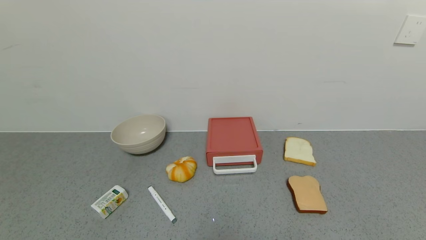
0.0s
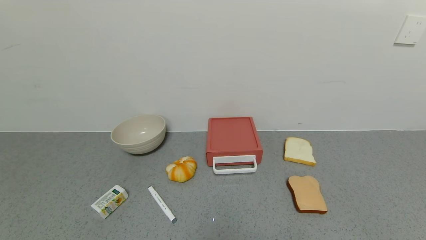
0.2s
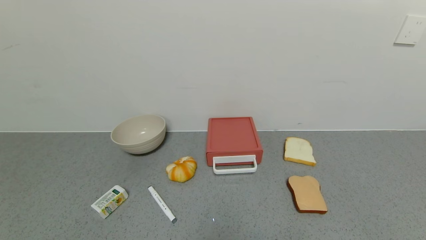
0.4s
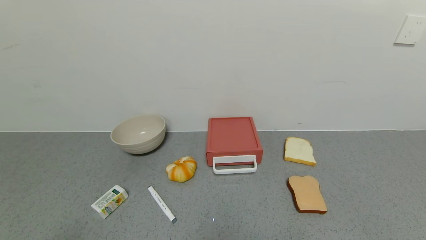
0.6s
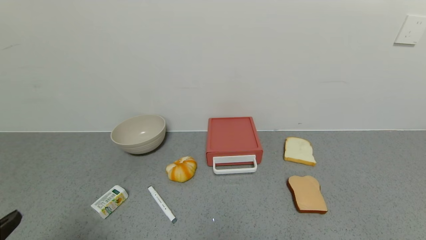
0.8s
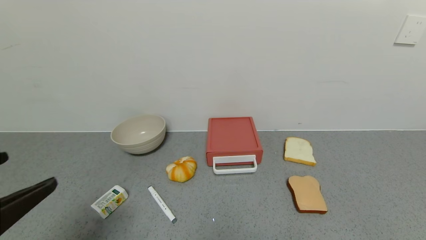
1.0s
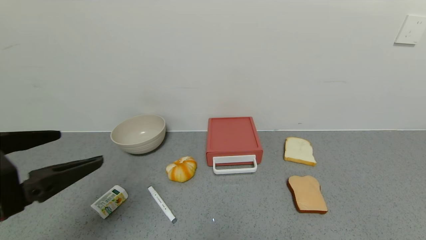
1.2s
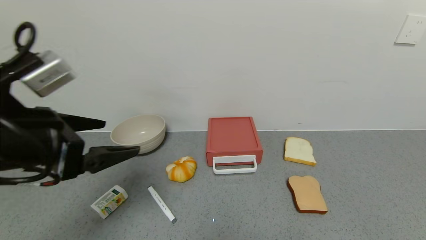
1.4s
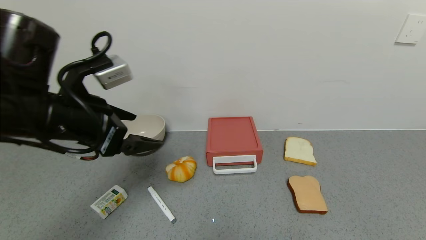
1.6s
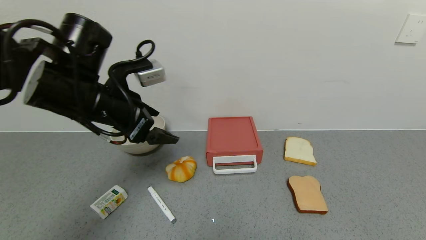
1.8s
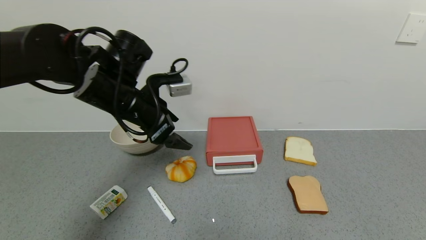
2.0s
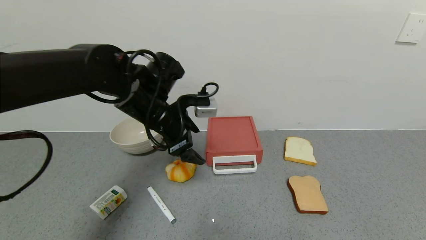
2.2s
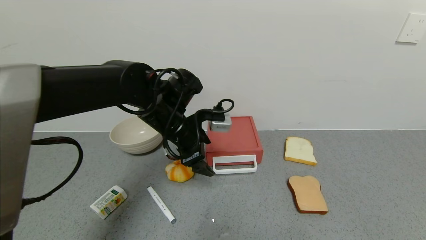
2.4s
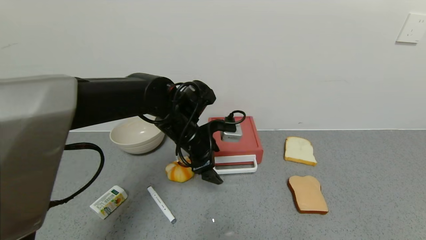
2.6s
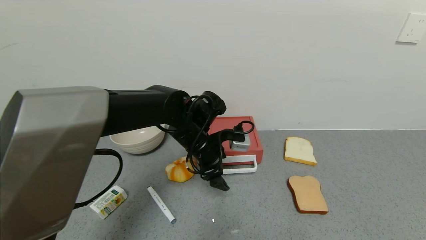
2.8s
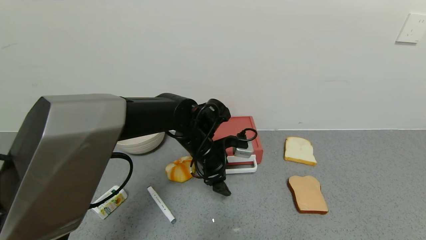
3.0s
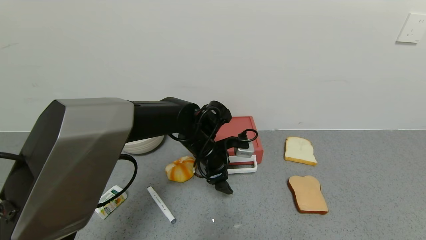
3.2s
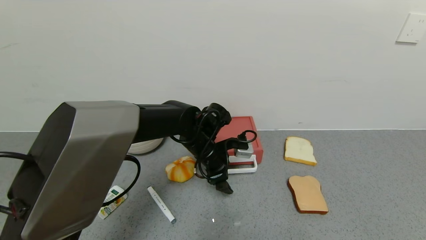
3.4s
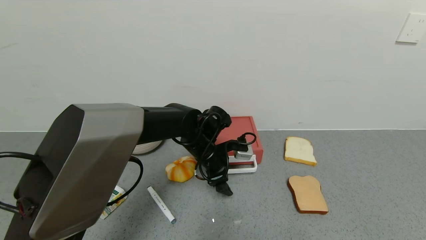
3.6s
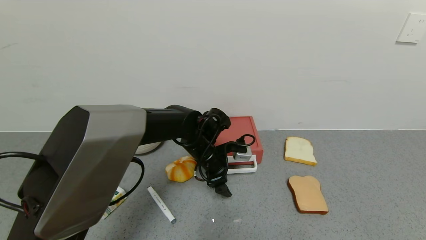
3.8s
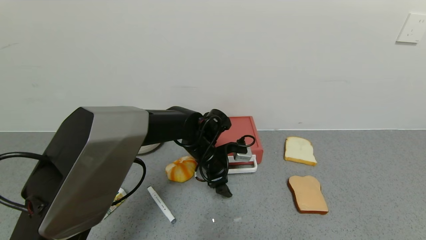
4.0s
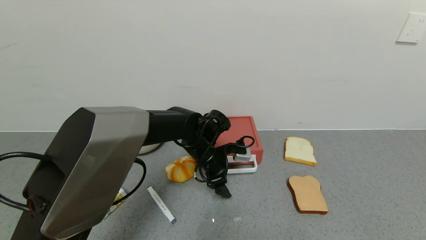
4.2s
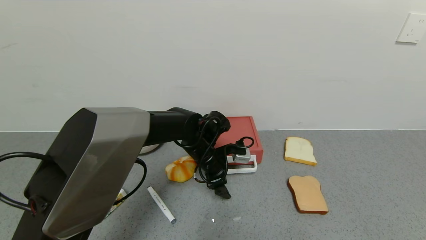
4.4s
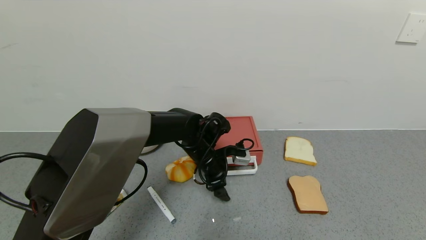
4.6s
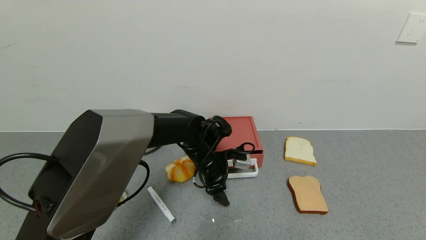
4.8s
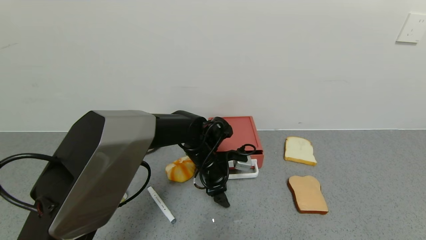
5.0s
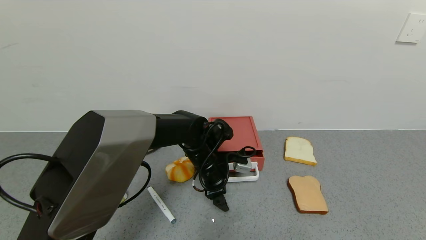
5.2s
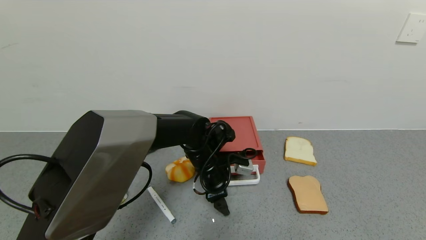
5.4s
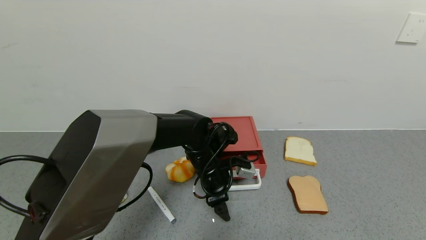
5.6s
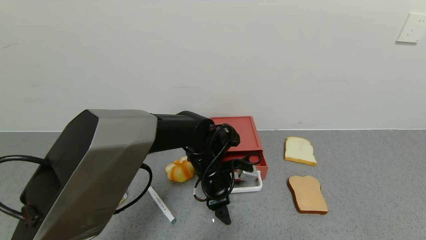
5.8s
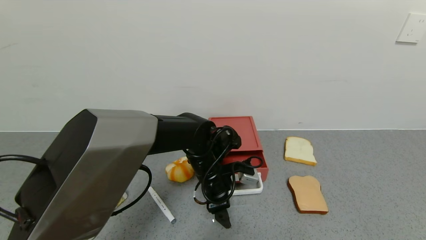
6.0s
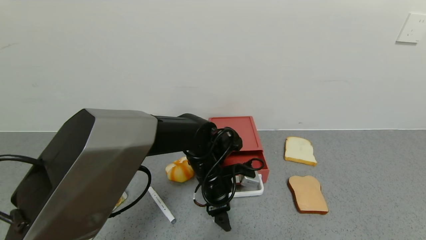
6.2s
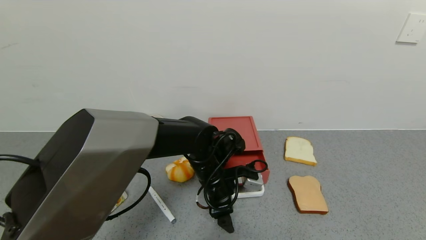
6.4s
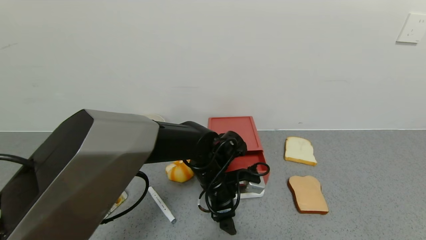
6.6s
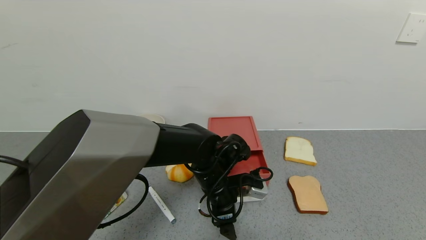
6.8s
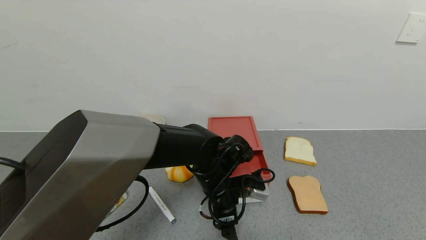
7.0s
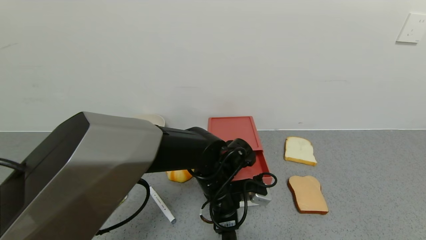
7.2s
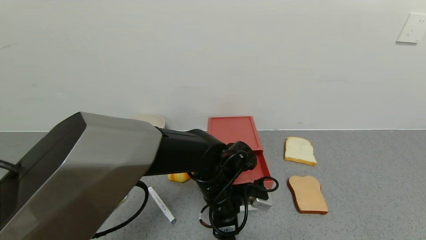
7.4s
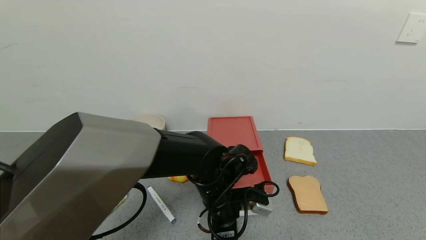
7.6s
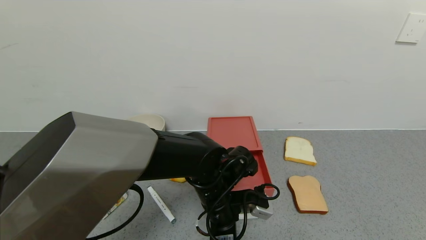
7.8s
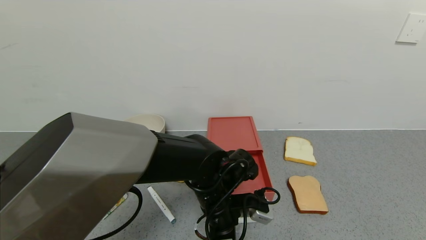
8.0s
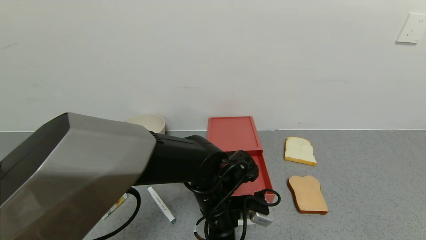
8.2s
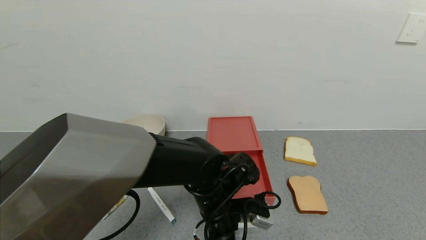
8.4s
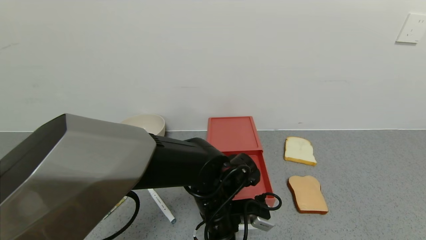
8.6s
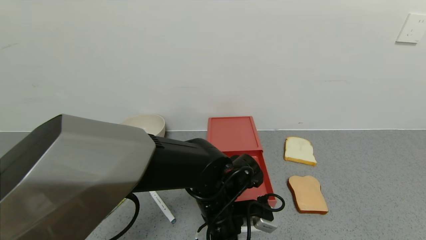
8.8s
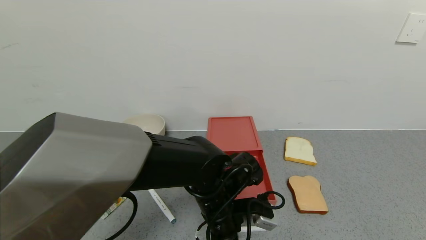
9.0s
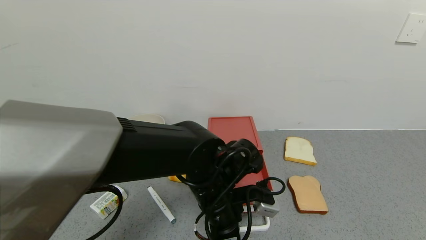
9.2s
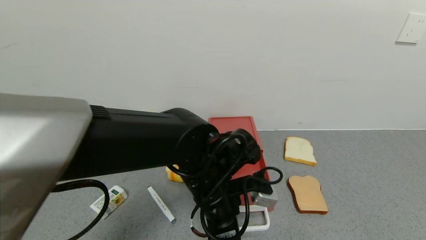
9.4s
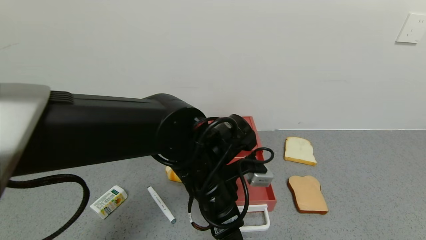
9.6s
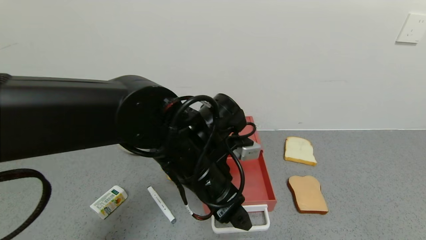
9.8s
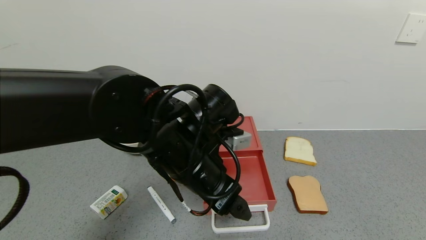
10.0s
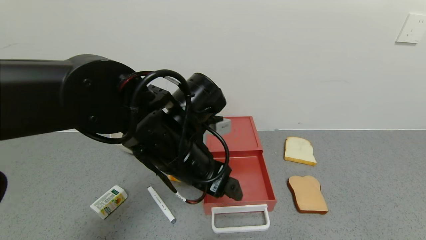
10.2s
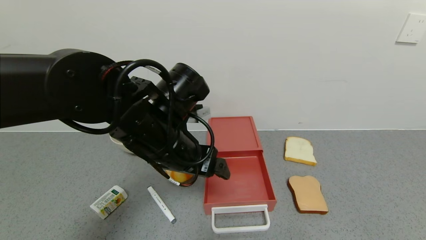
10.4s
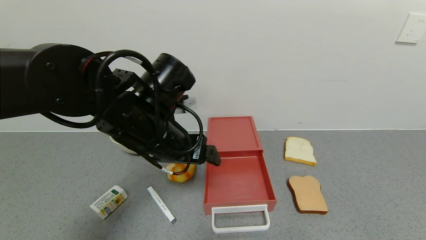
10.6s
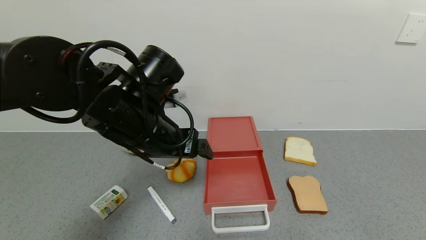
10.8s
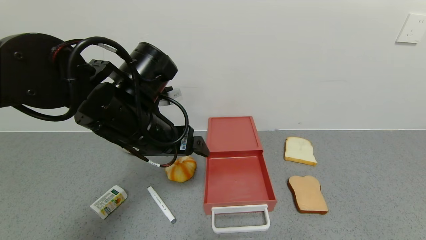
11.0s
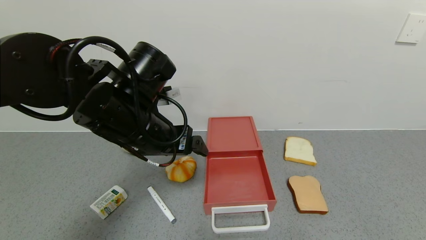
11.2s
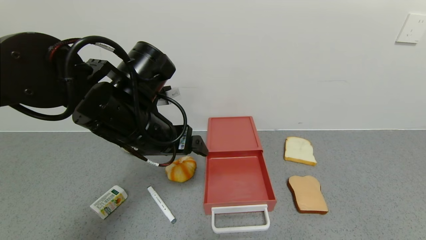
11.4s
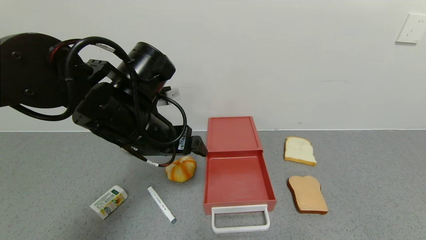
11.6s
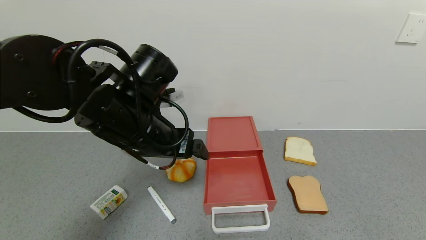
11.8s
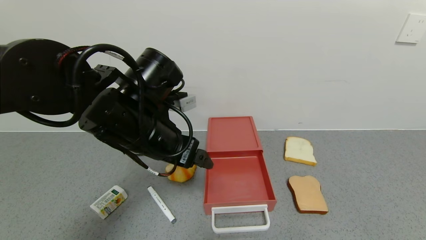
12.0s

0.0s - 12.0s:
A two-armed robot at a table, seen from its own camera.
Task of the whole recording: use the gripper to open the drawer and close the red drawer.
Step, 0.0s - 9.6s: Open the red drawer with left gripper.
0.0s - 1.6s: The left gripper goes approximately 35 cm forward and upward.
1.6s - 3.0s: The left gripper shifts about 25 cm to the right, downward and forward.
3.0s - 4.4s: The grippers move only a little.
4.4s - 6.0s: The left gripper moves about 5 cm.
6.0s - 7.6s: The left gripper moves backward, some 5 cm.
7.6s - 9.0s: The grippers stay close to where they were, moving slightly.
9.0s - 10.4s: The left gripper goes roughly 15 cm upward and to the left.
10.4s - 12.0s: The grippers stay close to where they were, moving slightly.

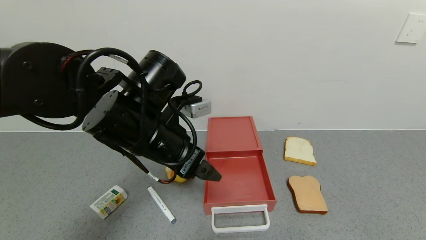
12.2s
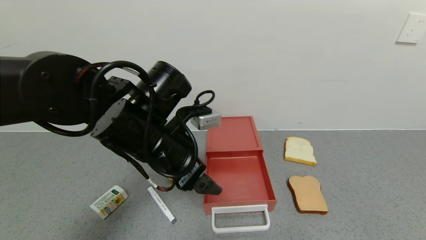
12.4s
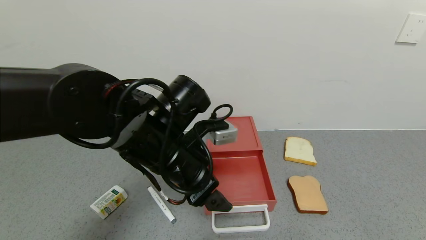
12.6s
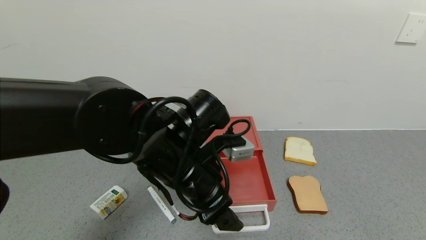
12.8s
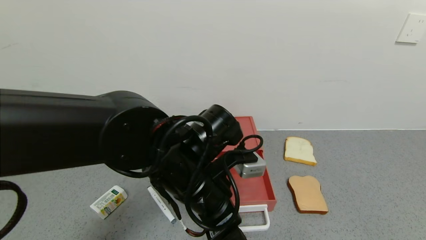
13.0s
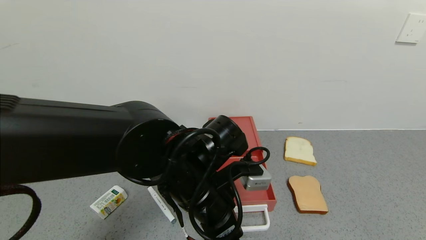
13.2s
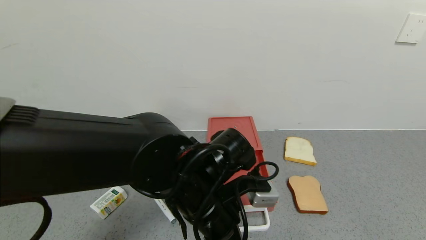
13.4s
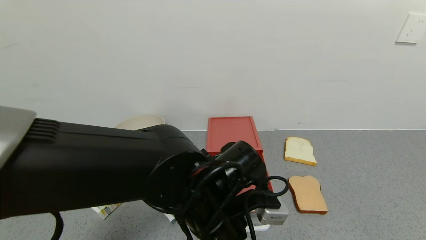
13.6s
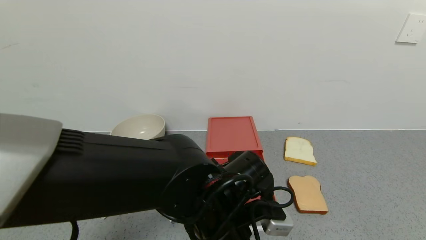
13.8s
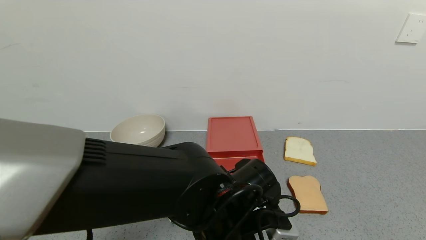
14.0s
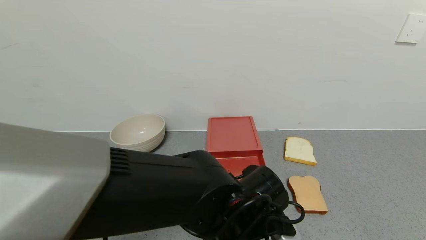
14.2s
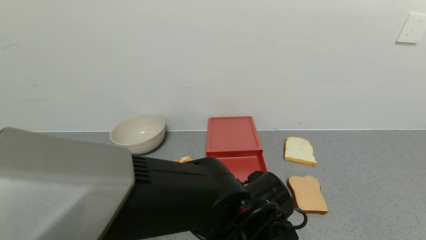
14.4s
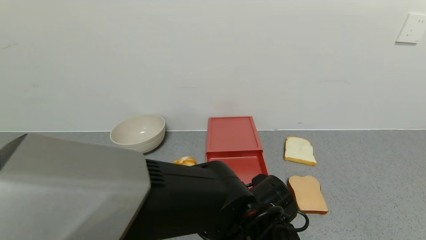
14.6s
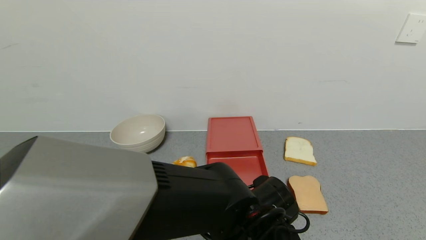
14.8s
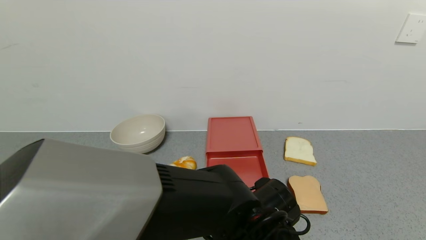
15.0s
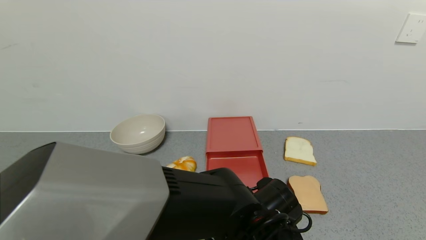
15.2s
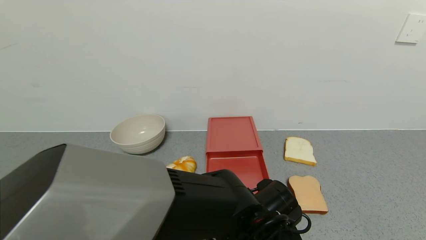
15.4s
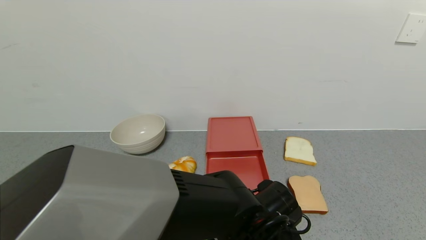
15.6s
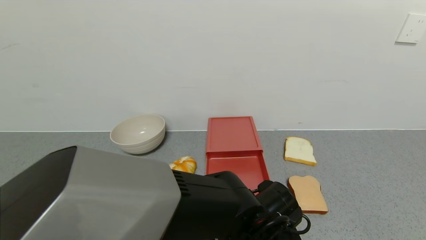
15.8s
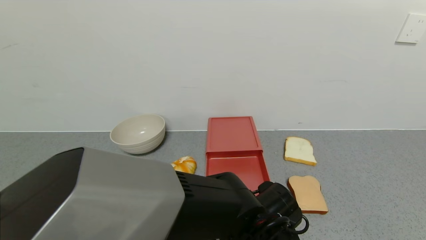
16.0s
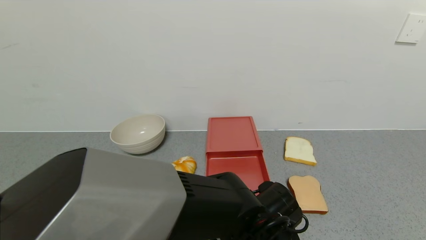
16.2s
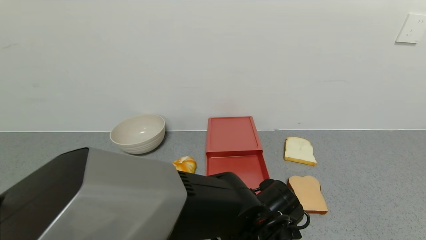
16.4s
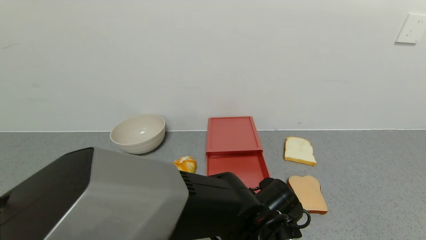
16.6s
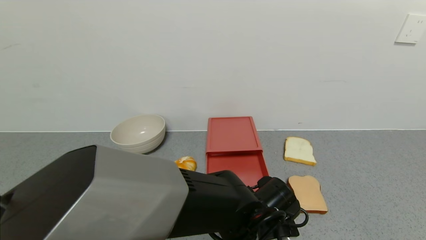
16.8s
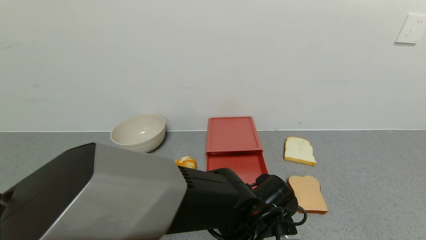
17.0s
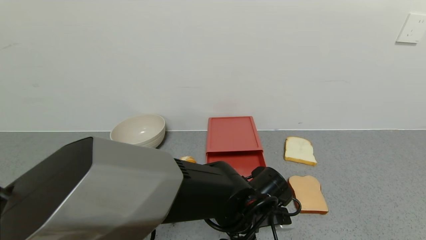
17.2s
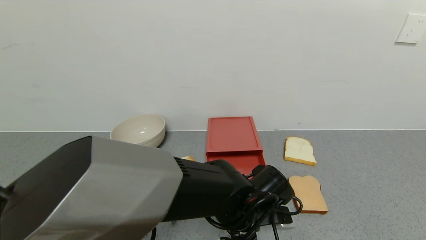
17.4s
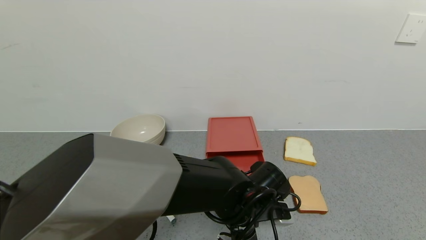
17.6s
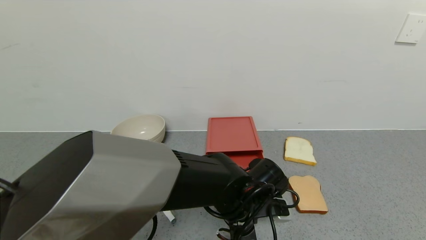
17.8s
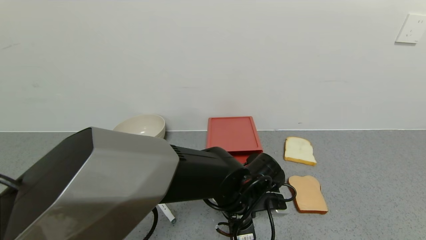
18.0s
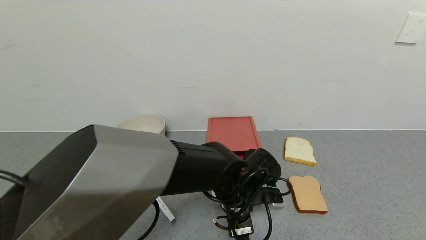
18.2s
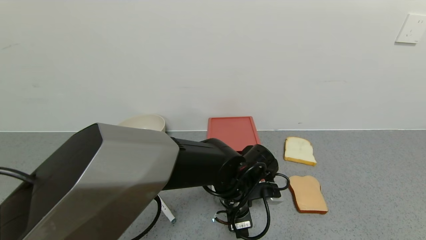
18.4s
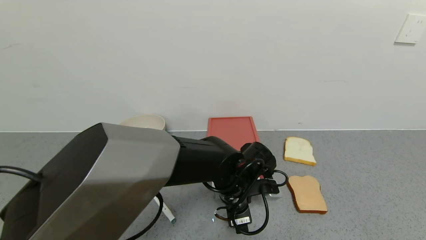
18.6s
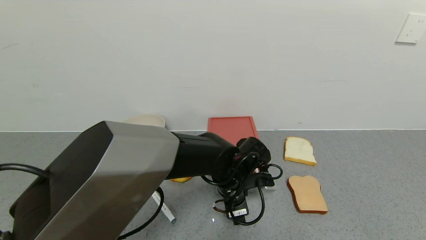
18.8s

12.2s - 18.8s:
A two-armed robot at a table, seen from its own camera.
Task of the whole recording: use the gripper to open the drawer and close the red drawer.
12.2s - 13.8s: The left gripper shifts some 15 cm downward, to the right and backward.
13.8s - 15.4s: The left gripper heads downward, covering roughly 5 cm.
15.4s - 17.2s: The grippers move only a little.
17.2s - 18.8s: The left gripper moves forward, approximately 5 cm.
